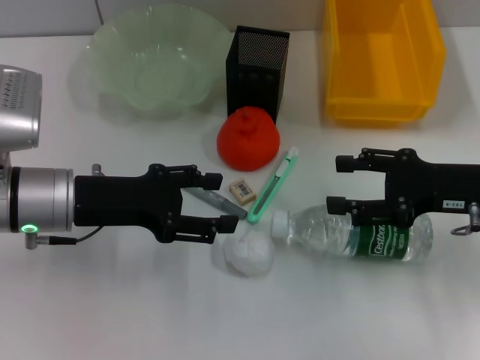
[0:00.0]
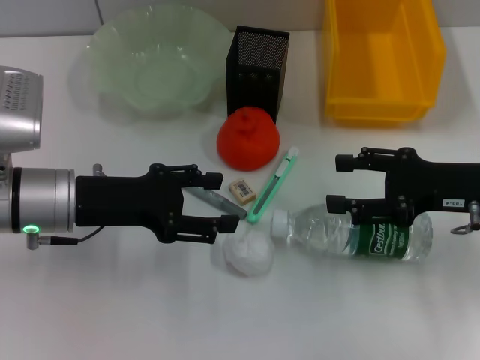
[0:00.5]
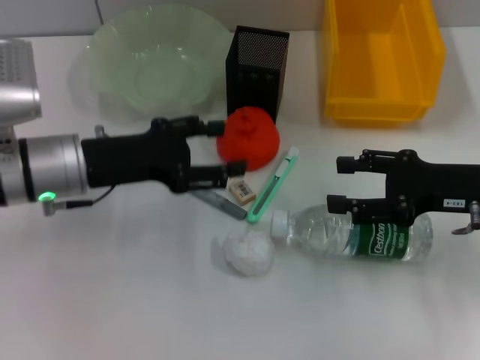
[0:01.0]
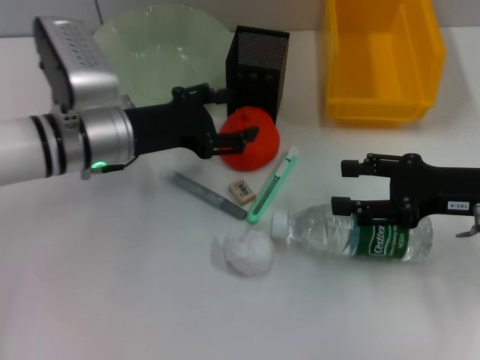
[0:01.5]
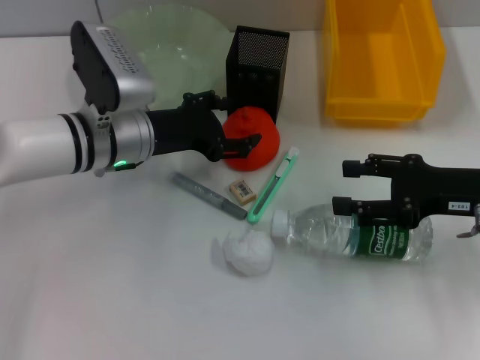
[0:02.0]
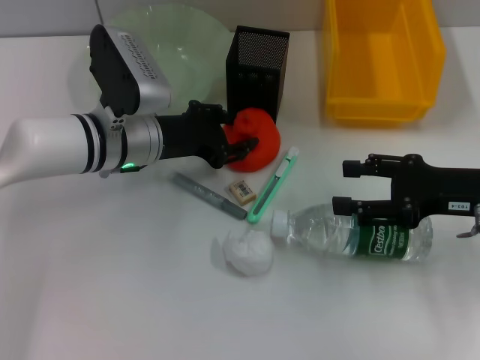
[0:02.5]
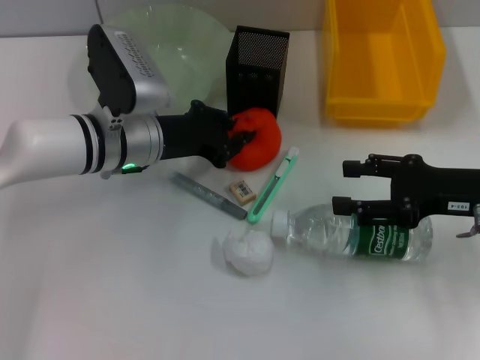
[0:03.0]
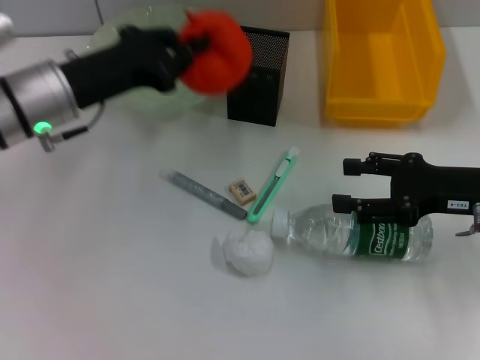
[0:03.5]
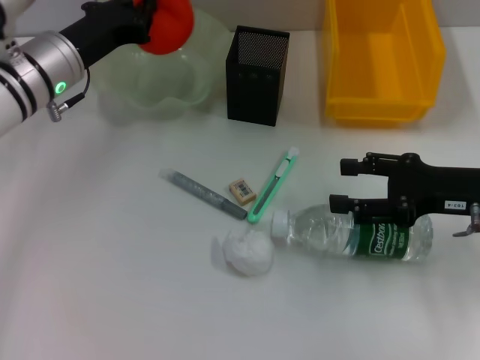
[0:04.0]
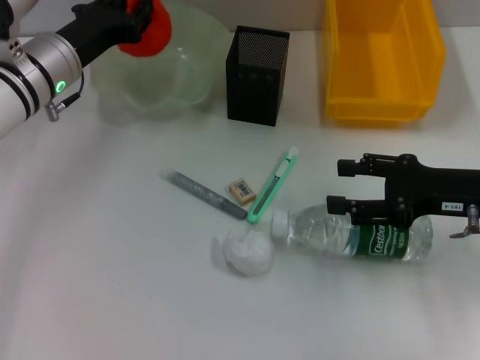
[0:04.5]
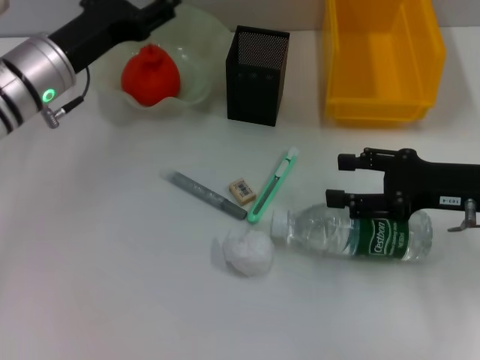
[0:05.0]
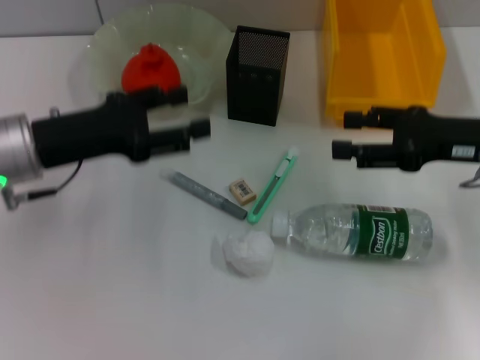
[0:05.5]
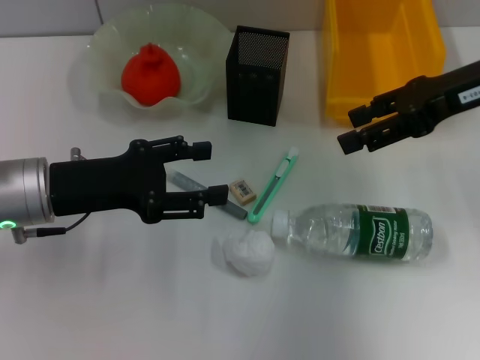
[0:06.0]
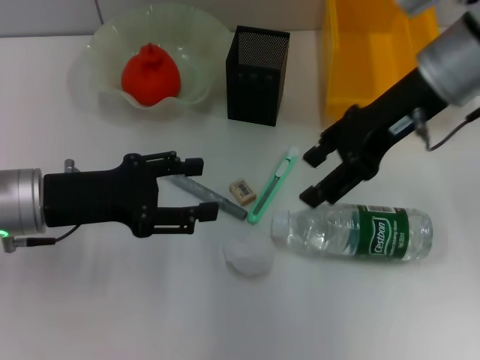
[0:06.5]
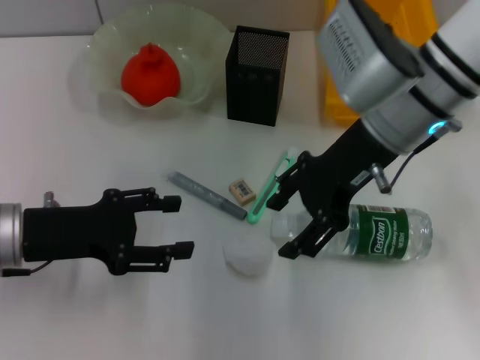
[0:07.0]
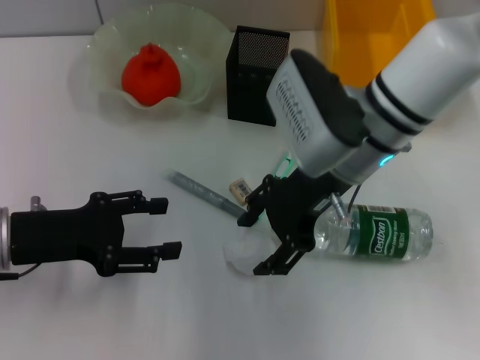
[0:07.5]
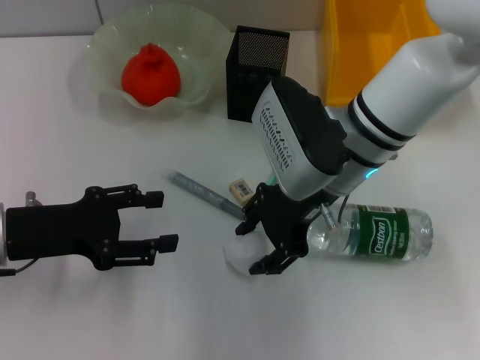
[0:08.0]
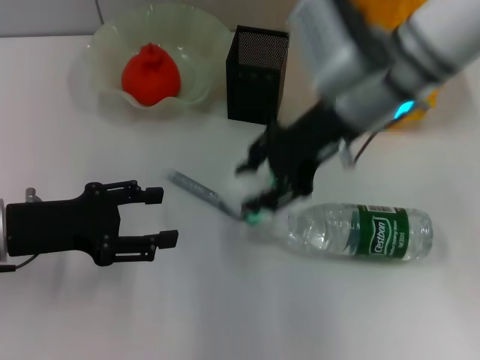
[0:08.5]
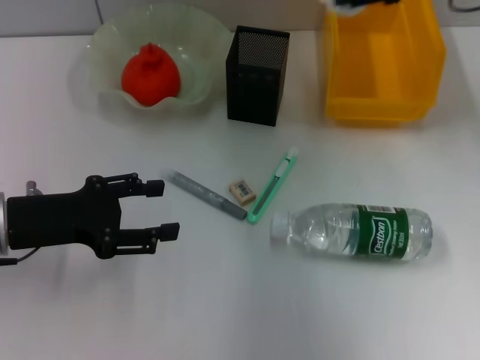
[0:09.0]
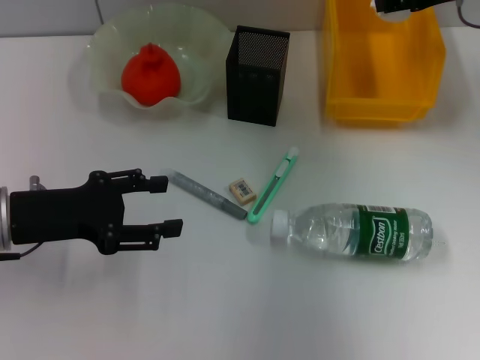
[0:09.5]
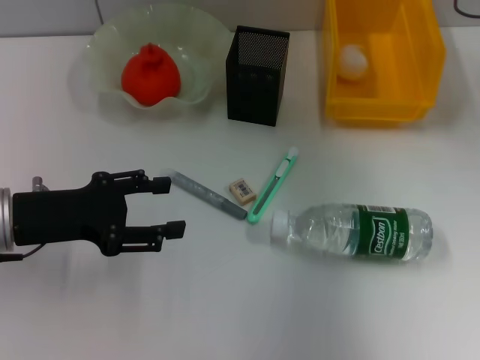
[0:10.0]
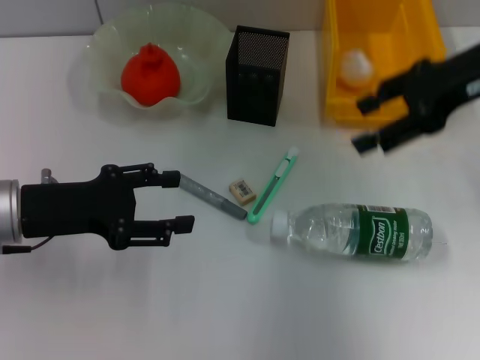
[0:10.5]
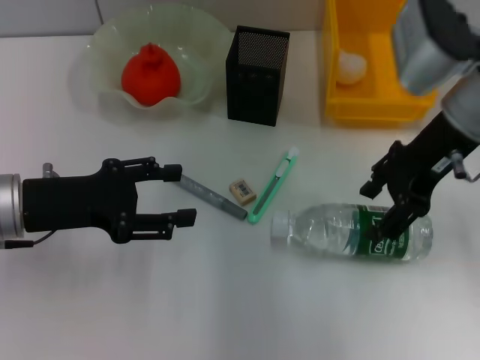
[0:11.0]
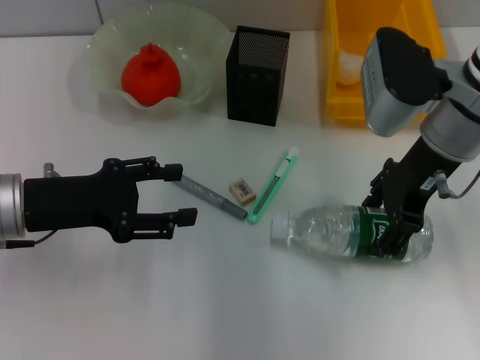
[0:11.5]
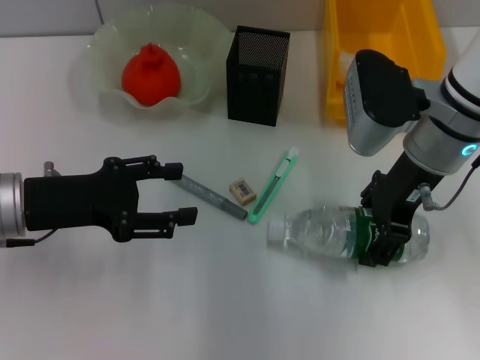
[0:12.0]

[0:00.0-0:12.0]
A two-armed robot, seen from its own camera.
Step, 0:00.0 to 0:02.5: Grab the orange with the left hand.
Step, 0:03.0 to 0:04.5: Place the orange into the fruit bowl with the left hand.
Step, 0:05.0 to 0:08.0: Grab the paper ball with the right hand.
Step, 0:08.5 to 0:10.5: Place the paper ball into the trash can with the right hand.
0:00.0 to 0:02.0: The left gripper is displaced forward and to the right by roughly 10 cm.
0:02.0 to 0:04.0: The left gripper moves to the left, about 5 cm, and closes.
0:04.0 to 0:06.0: The right gripper moves upward and forward, roughly 15 cm. Meanwhile the left gripper moves backward, about 10 cm, and opens up.
0:06.0 to 0:08.0: The left gripper shifts by about 5 cm, while the right gripper shifts some 20 cm to the left and downward.
0:08.0 to 0:10.0: The right gripper is displaced to the right, forward and upward by approximately 20 cm.
0:10.0 to 0:12.0: The right gripper shifts about 15 cm to the left, backward and downward.

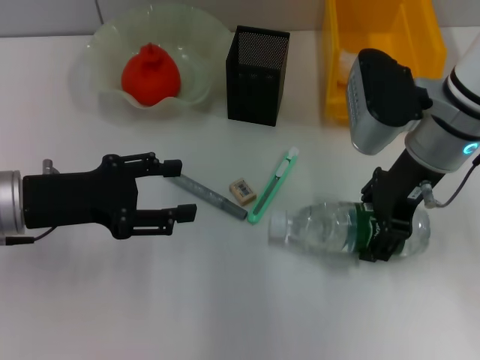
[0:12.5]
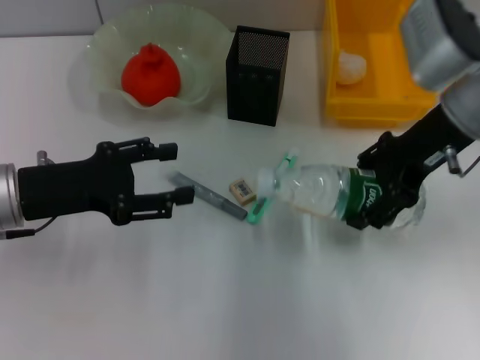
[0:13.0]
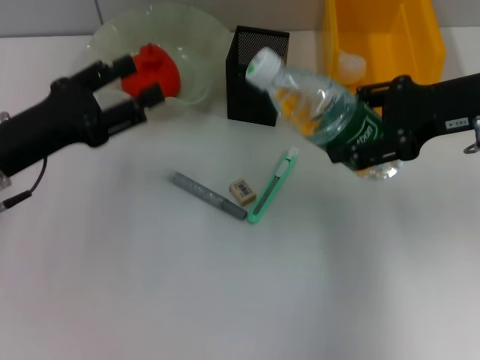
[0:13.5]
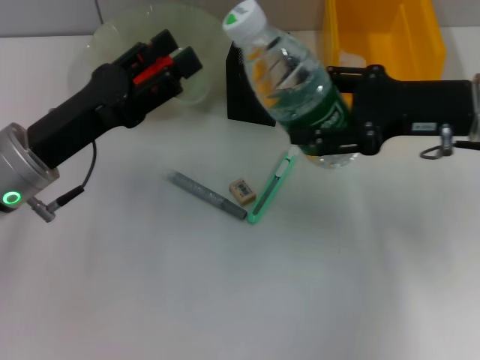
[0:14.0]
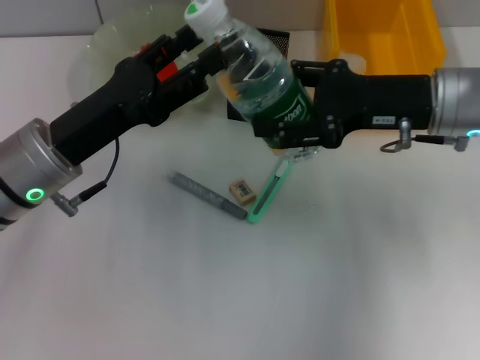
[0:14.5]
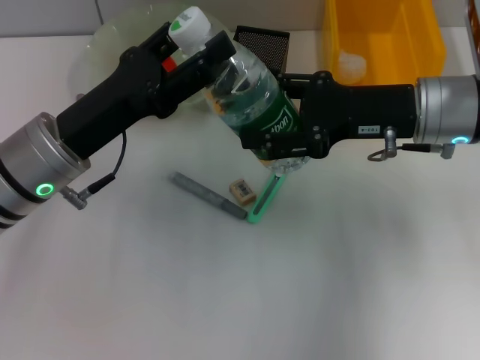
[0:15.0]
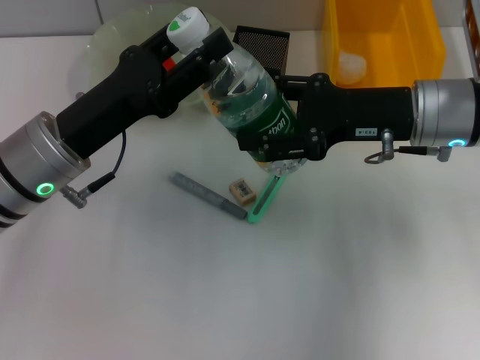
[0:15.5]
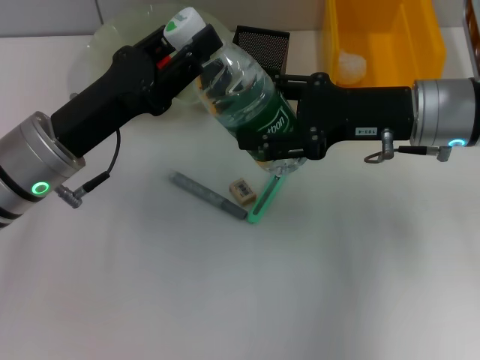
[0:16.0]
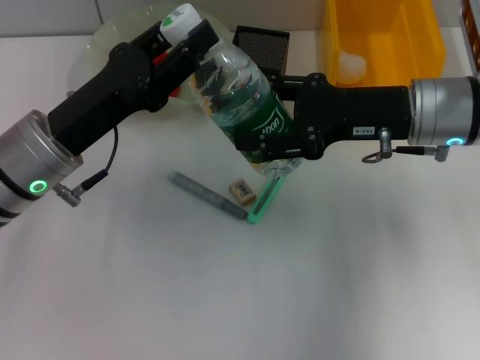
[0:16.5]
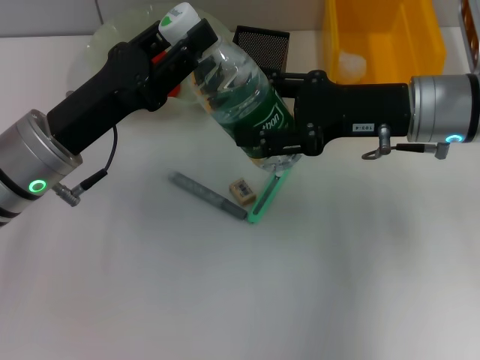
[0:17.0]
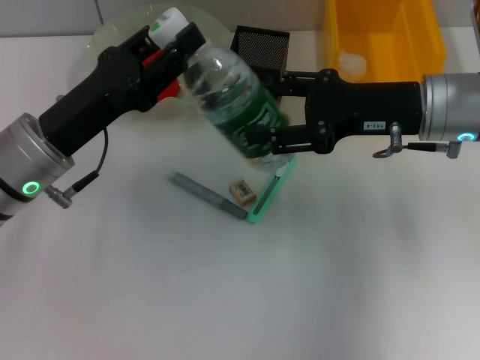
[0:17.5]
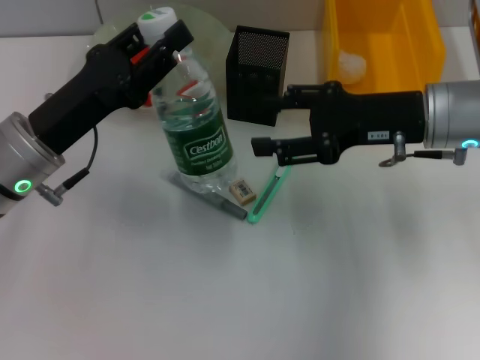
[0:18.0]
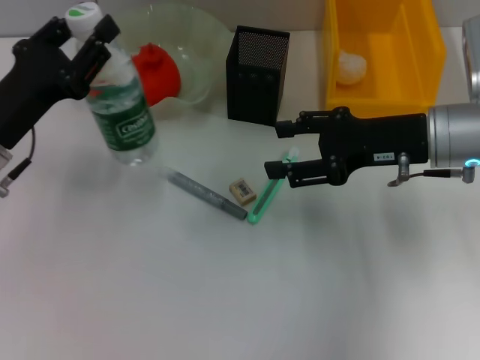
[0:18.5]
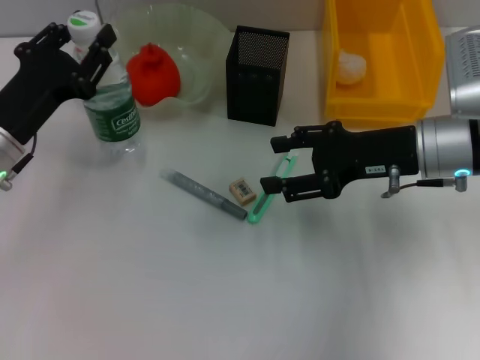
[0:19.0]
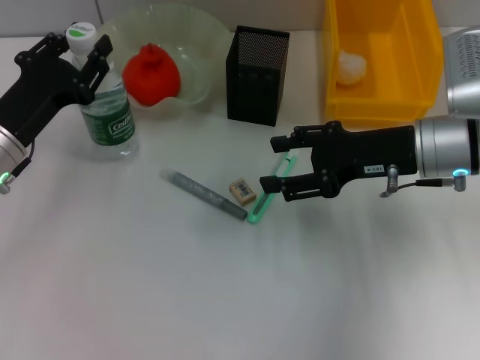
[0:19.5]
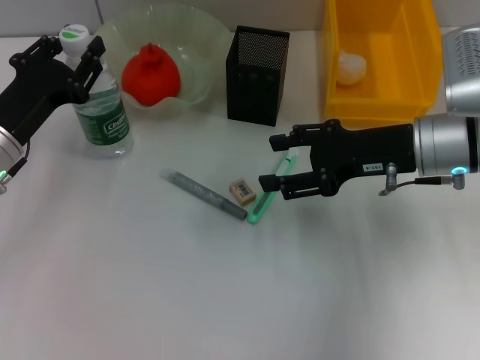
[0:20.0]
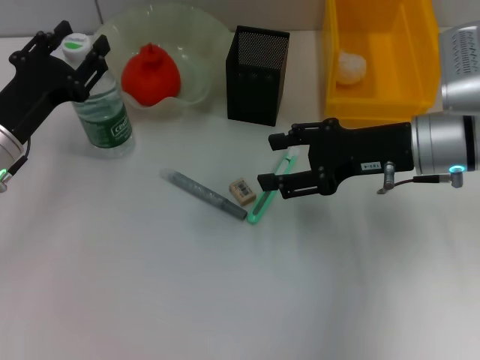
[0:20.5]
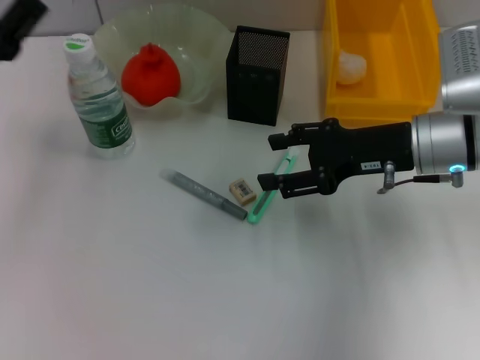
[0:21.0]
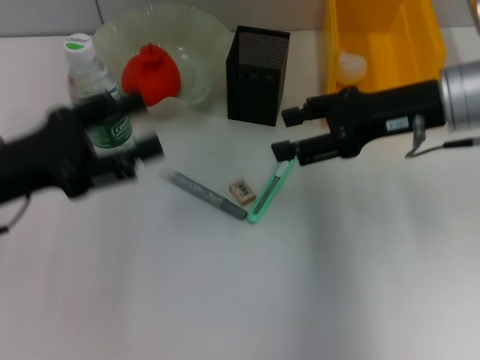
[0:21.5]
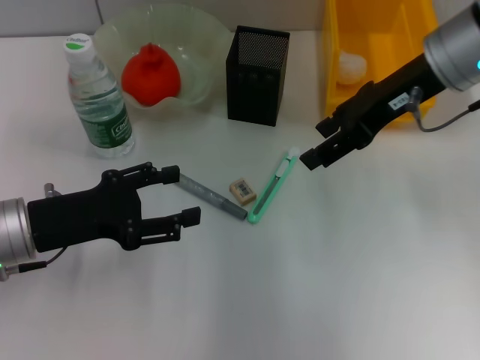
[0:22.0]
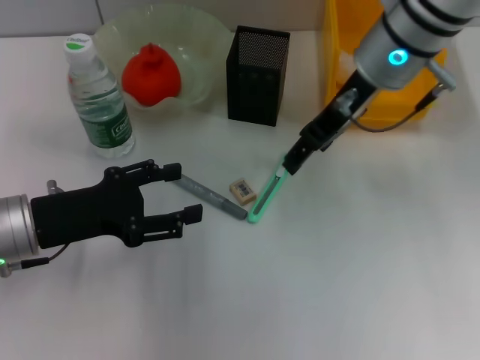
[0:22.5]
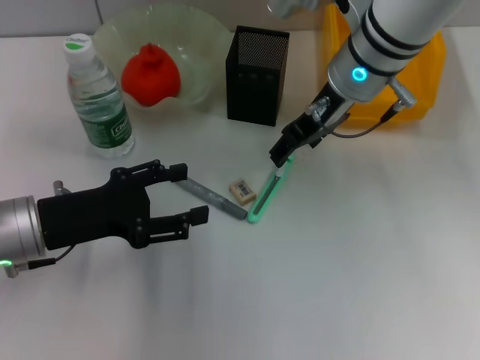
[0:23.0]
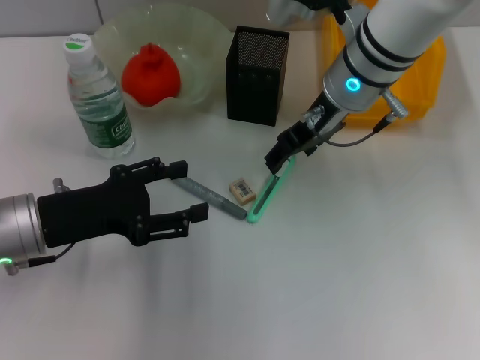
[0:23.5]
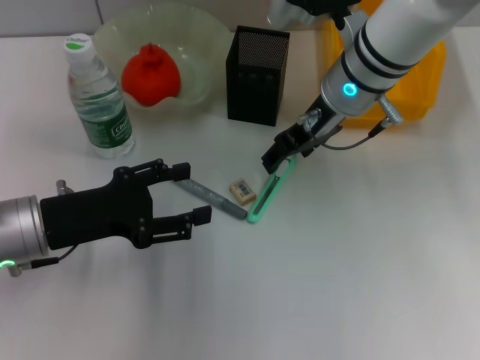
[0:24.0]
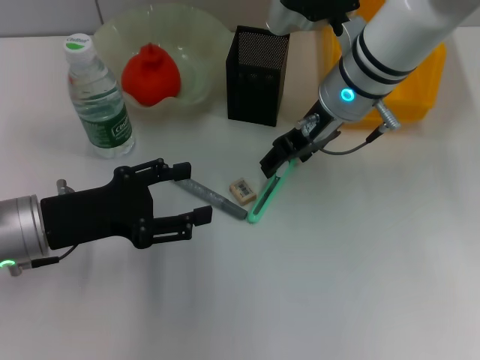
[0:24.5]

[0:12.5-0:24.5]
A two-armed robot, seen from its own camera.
Step, 0:12.5 to 0:17.0: Pass the water bottle from the right hand to the left hand.
Step, 0:17.5 to 0:20.5: Place the water bottle on the table with the left hand.
0:12.5 to 0:14.5: The left gripper heads to the right, covering roughly 5 cm.
0:14.5 to 0:16.5: The left gripper closes its fingers.
0:16.5 to 0:18.5: The left gripper shifts about 5 cm to the left.
0:18.5 to 0:20.5: There are only small adjustments of the grippers.
0:20.5 to 0:22.5: The left gripper shifts roughly 5 cm backward, and opens. The right gripper goes some 15 cm upward, to the left and forward.
0:22.5 to 0:24.5: The right gripper shifts about 5 cm downward.

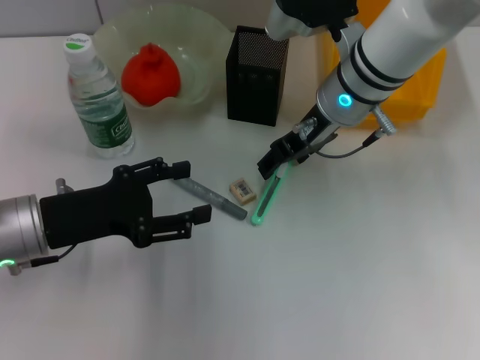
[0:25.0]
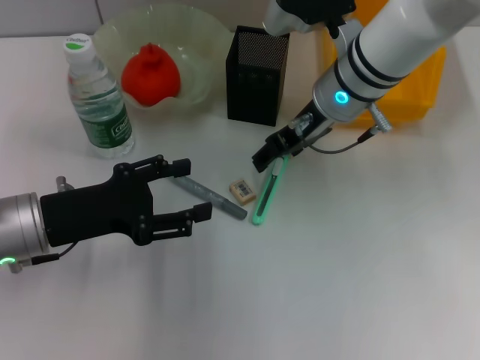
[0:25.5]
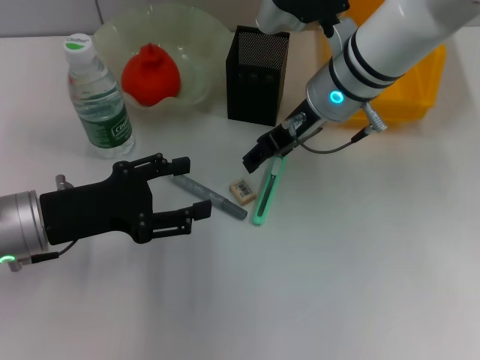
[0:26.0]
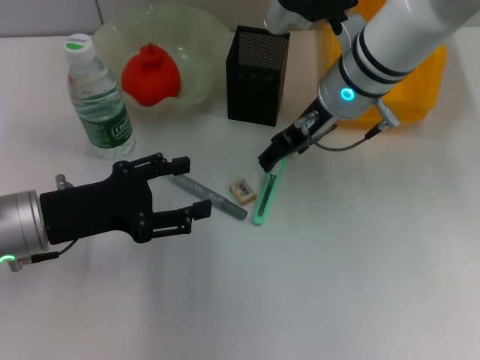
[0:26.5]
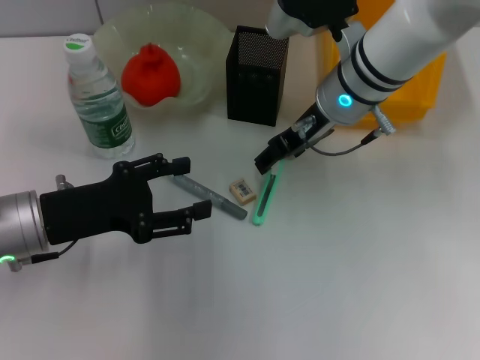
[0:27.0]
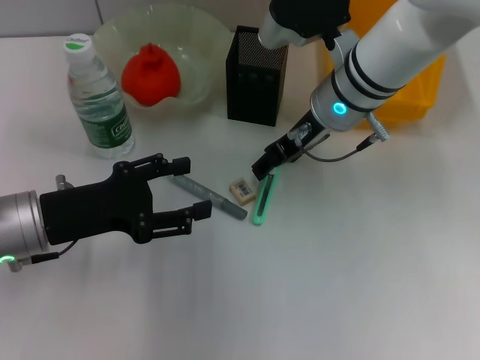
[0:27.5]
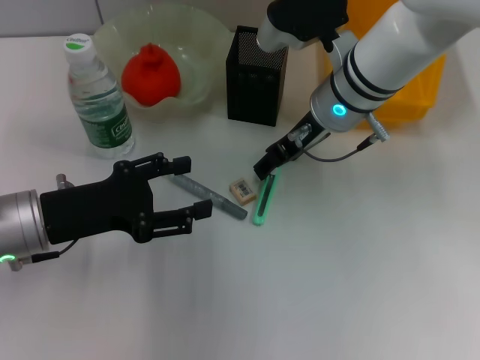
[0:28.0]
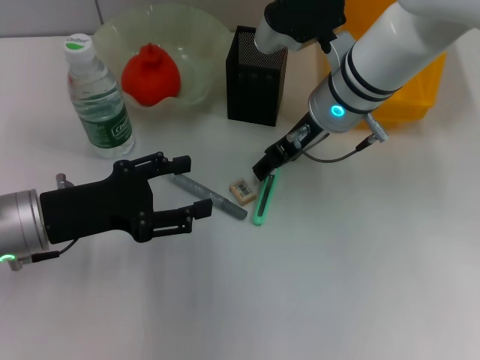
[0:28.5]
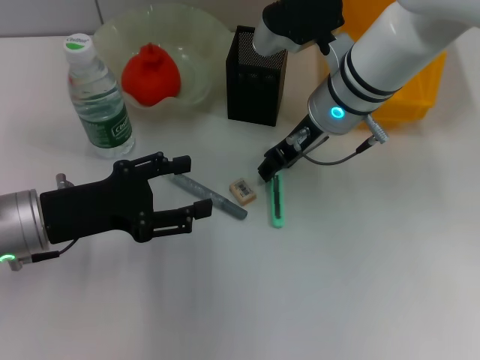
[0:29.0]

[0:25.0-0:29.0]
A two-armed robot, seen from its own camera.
0:25.0 to 0:27.0: The grippers move only a little.
0:27.0 to 0:29.0: Both grippers stay about where they are.
